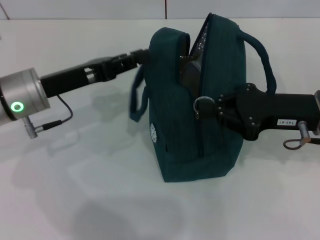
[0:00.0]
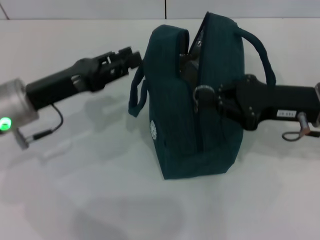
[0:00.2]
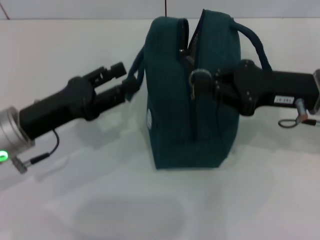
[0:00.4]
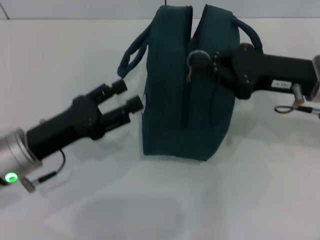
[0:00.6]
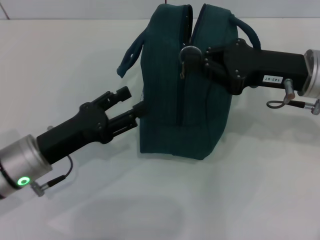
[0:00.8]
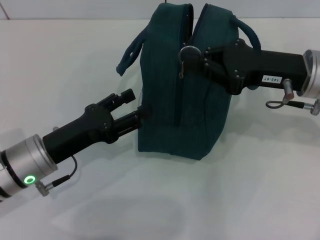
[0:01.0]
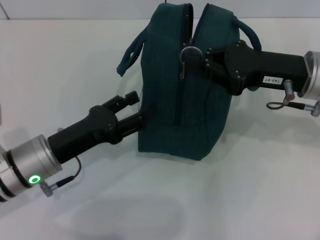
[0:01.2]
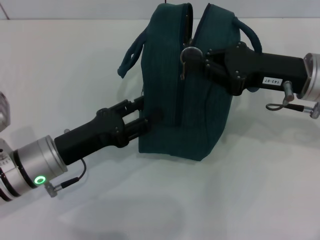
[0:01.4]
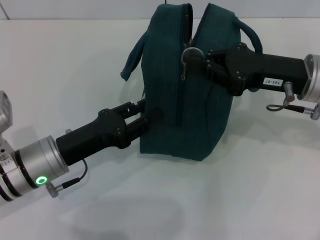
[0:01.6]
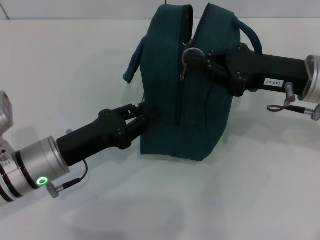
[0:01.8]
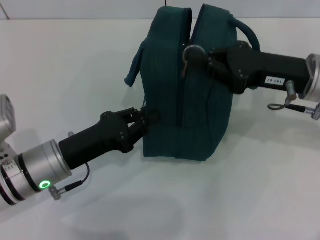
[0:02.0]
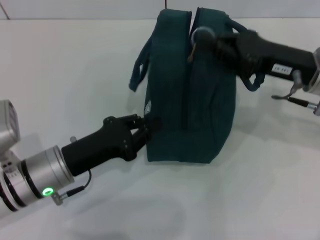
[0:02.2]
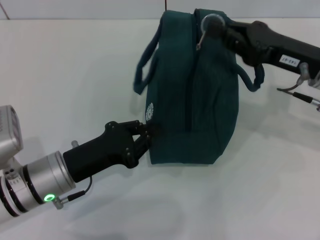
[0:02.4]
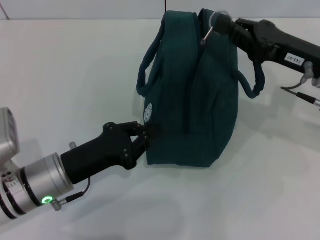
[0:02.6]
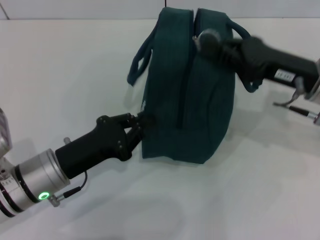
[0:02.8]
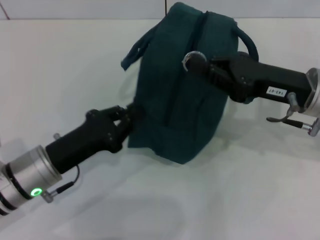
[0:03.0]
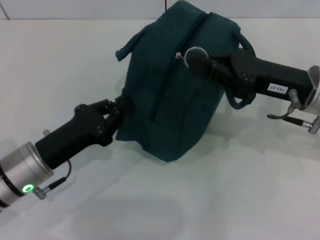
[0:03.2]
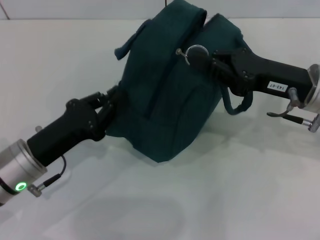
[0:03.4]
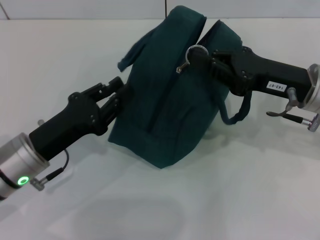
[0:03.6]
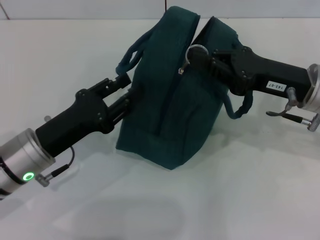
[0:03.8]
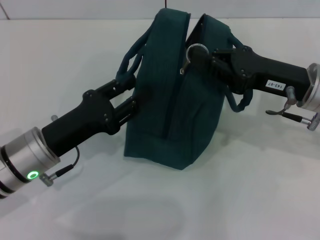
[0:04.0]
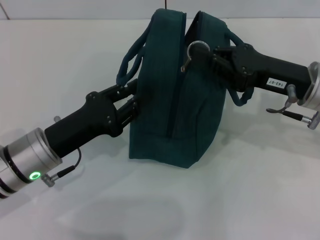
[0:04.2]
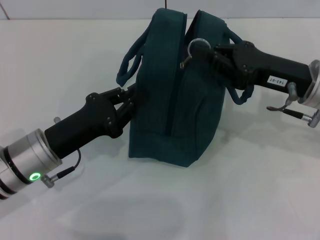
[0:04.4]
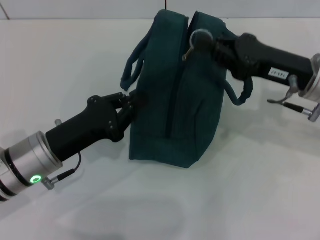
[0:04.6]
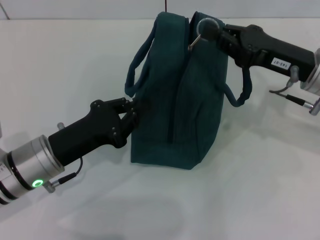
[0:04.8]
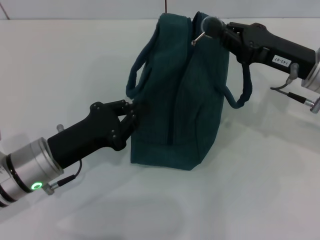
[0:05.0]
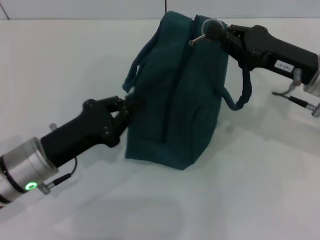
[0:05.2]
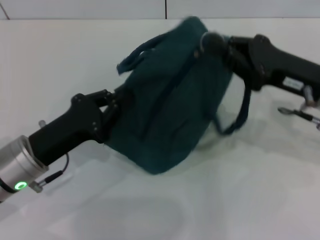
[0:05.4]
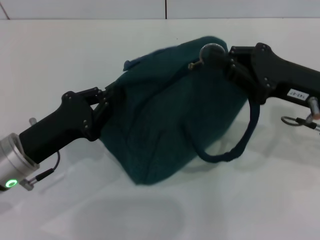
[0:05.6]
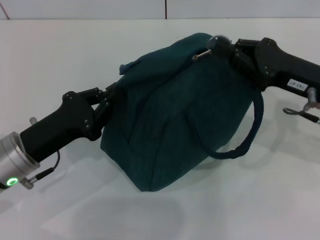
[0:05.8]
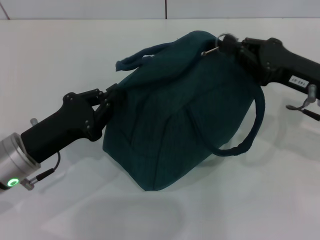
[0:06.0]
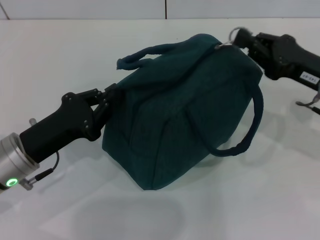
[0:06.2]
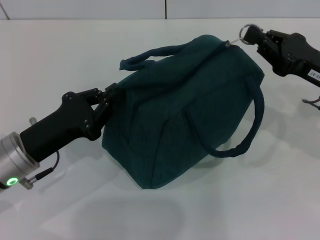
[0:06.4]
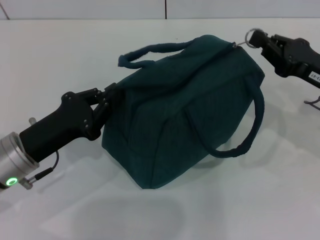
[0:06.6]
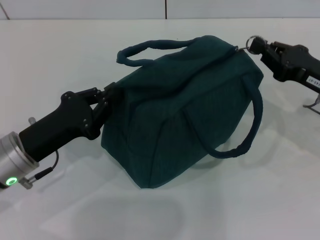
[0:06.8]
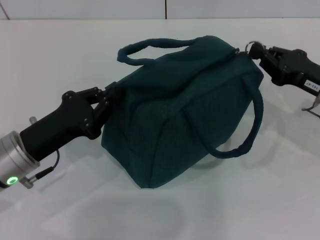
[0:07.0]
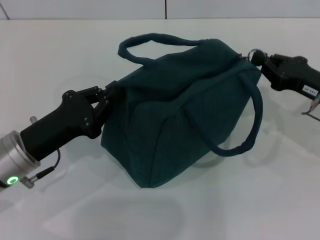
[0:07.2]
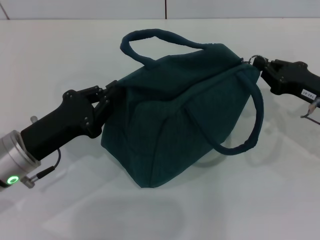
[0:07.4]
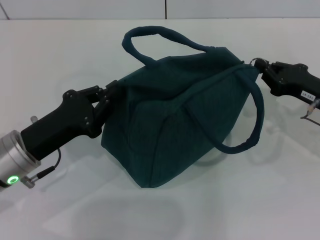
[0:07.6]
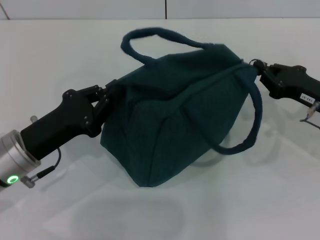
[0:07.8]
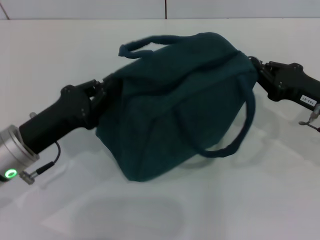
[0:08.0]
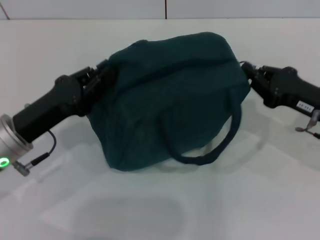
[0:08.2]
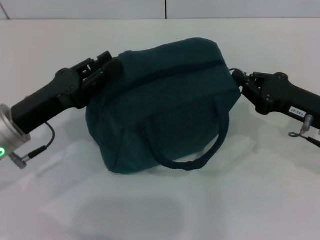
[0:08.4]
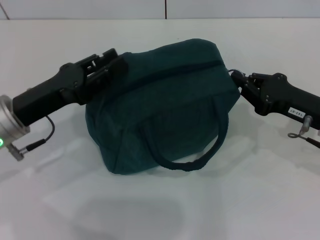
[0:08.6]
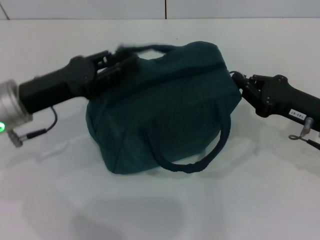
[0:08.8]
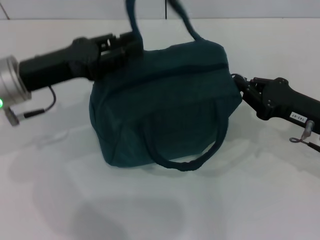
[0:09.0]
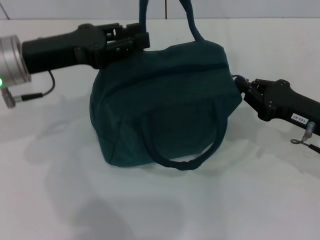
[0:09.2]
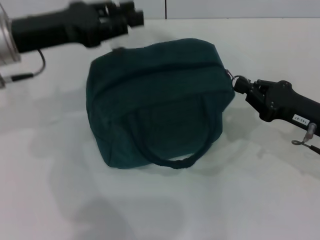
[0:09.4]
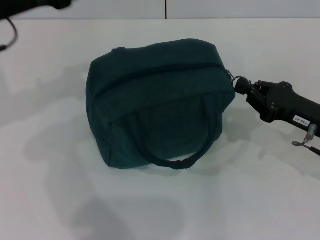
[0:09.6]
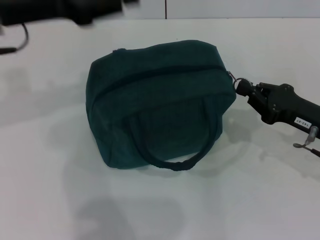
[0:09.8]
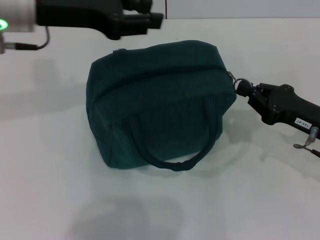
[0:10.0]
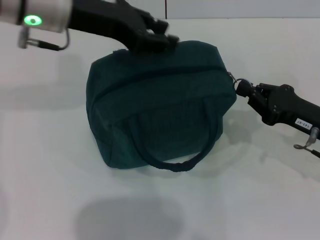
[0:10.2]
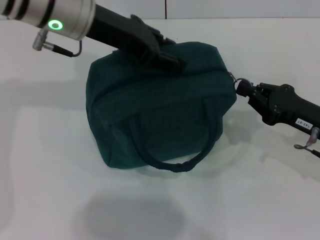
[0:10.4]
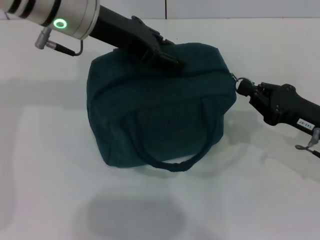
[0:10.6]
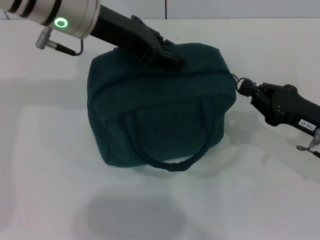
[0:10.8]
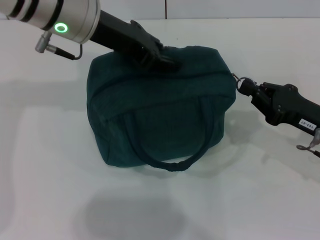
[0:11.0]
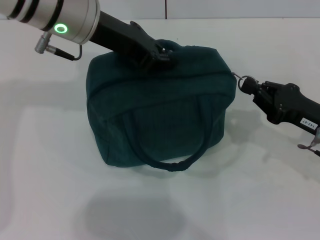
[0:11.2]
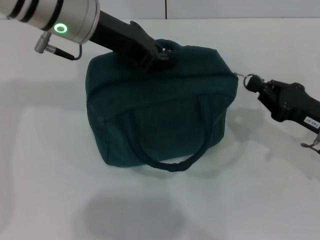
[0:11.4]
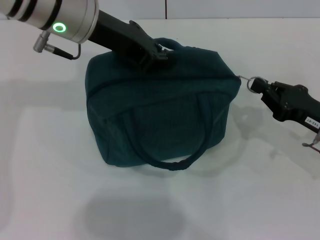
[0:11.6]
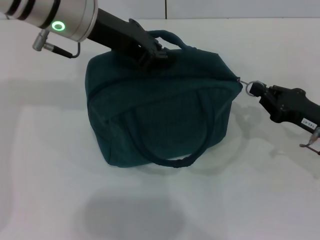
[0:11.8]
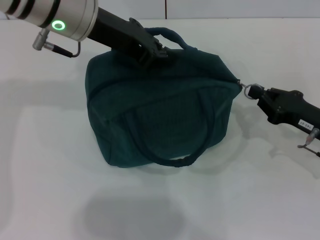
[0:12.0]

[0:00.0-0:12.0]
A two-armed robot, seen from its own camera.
0:00.0 to 0:01.6: The left gripper moves downward and backward, roughly 10 cm, and opens its fingers.
0:01.6 to 0:03.0: The left gripper closes.
0:03.0 to 0:04.4: There are only small adjustments of the grippers.
0:04.4 to 0:06.0: The left gripper closes its fingers.
0:06.0 to 0:07.6: The right gripper travels downward by roughly 5 cm.
0:07.6 to 0:09.0: The left gripper is displaced upward and forward by some 10 cm, and opens its fingers.
0:09.0 to 0:10.4: The left gripper shifts roughly 15 cm to the right, upward and forward.
0:10.4 to 0:12.0: The left gripper closes.

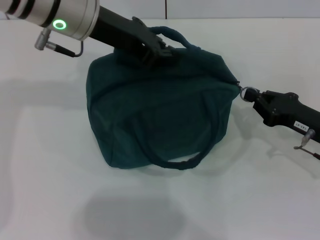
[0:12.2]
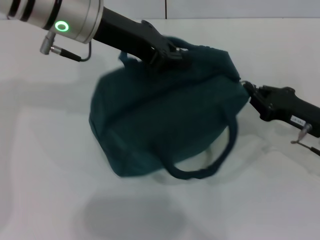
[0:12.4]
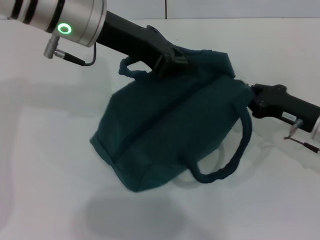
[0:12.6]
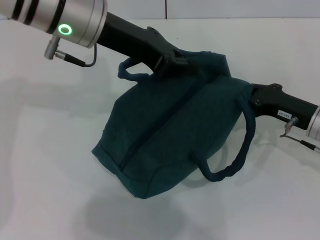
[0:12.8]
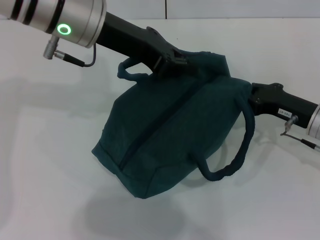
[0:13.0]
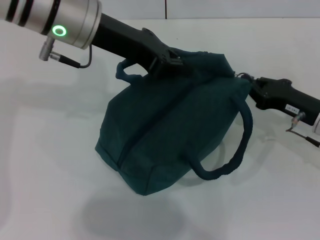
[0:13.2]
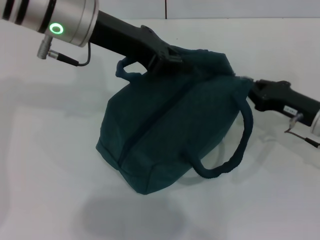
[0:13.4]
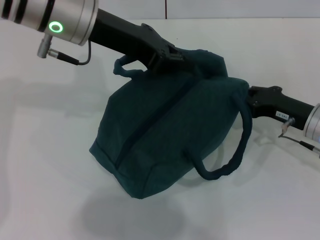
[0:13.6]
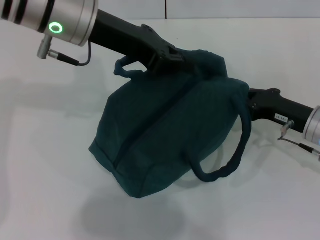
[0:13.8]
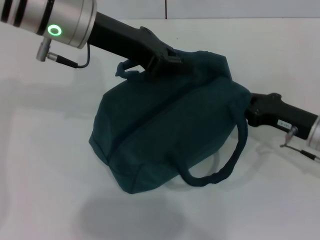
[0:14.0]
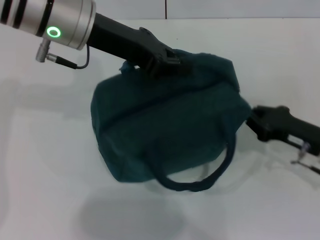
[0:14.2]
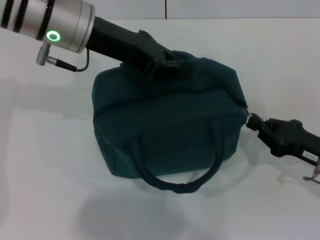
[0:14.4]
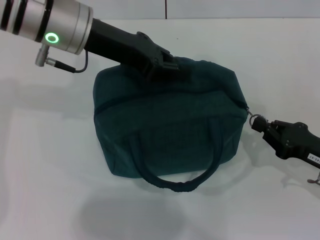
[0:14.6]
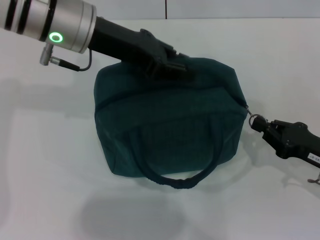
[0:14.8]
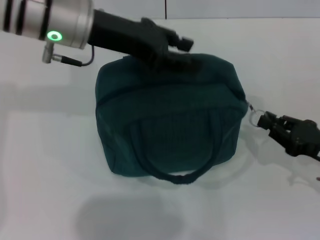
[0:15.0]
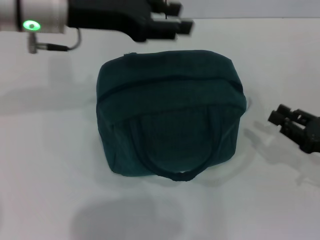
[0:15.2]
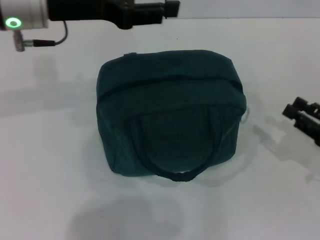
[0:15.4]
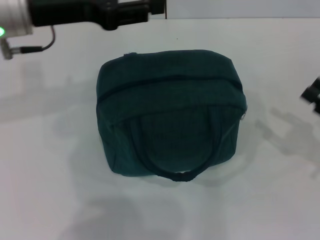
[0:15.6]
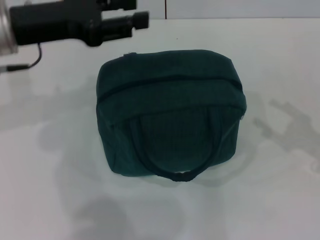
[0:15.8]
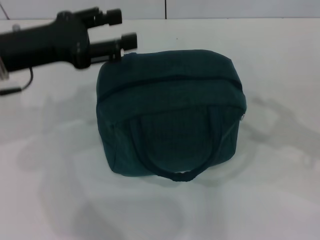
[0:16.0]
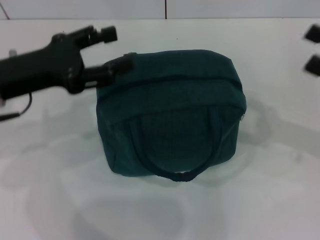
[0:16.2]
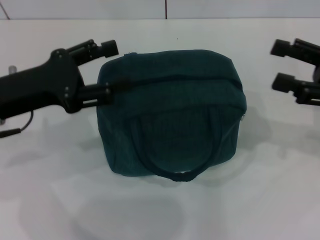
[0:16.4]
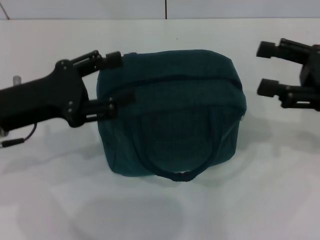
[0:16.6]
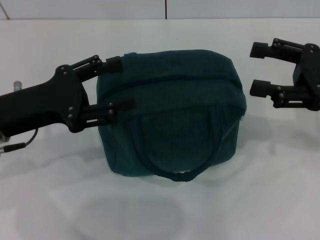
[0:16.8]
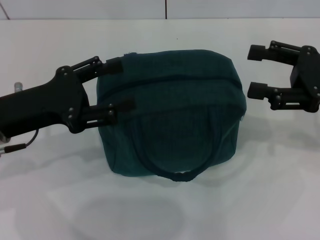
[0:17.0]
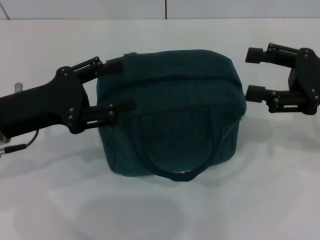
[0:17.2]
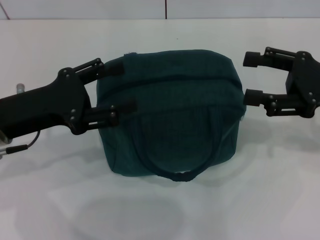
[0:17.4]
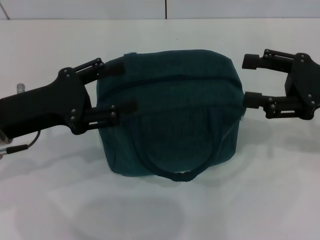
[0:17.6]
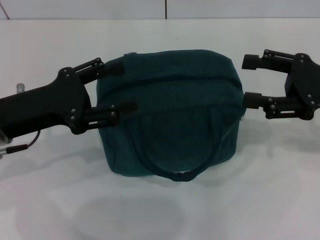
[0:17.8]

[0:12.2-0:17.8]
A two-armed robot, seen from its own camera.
Step, 0:12.2 to 0:14.8: Zip up the lunch bag with your right hand.
0:12.2 to 0:13.6: The grippers stay close to where they were, moving slightly.
0:13.6 to 0:15.0: The right gripper travels backward by roughly 10 cm. Meanwhile the left gripper opens.
0:15.0 to 0:16.4: The left gripper shifts about 15 cm to the left, backward and downward, and opens up; the right gripper travels upward and forward by roughly 15 cm, and opens.
0:16.4 to 0:17.8: The grippers make only small movements.
